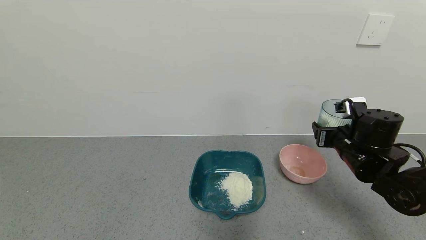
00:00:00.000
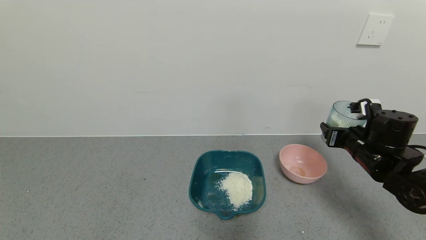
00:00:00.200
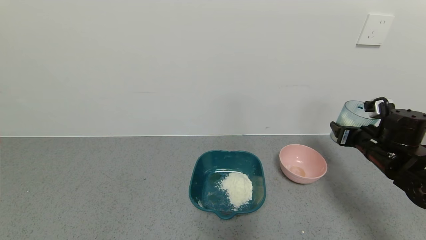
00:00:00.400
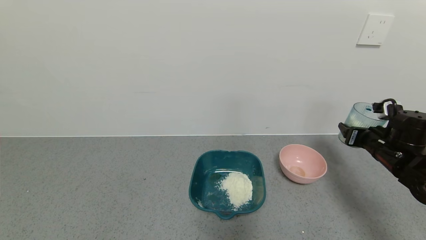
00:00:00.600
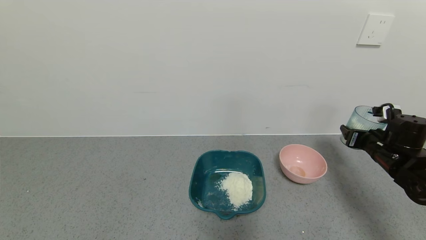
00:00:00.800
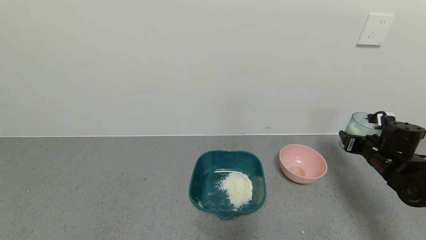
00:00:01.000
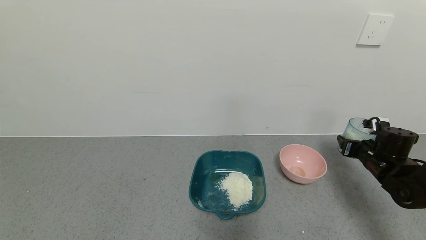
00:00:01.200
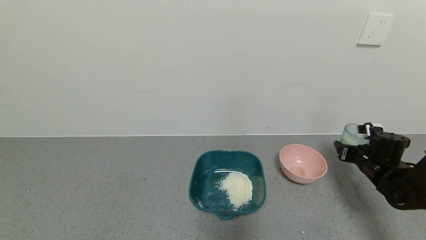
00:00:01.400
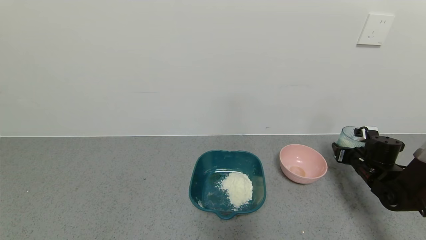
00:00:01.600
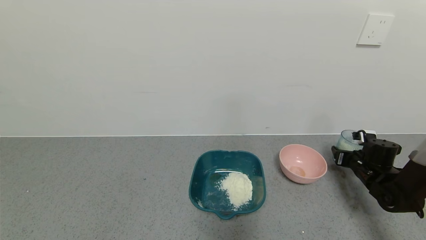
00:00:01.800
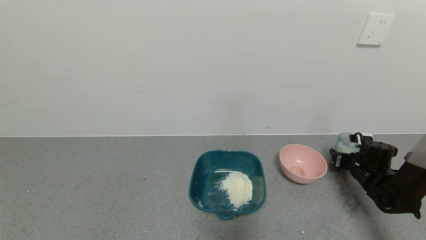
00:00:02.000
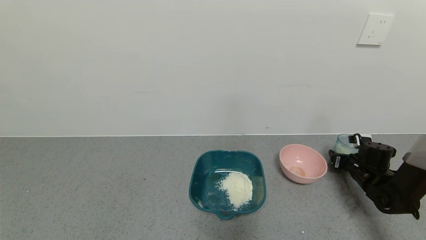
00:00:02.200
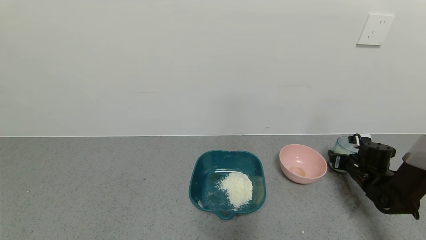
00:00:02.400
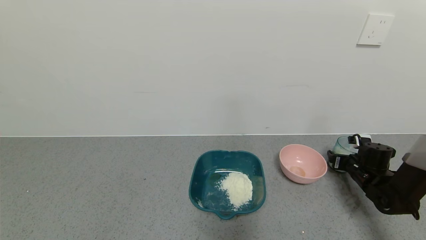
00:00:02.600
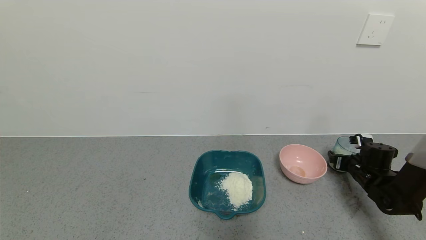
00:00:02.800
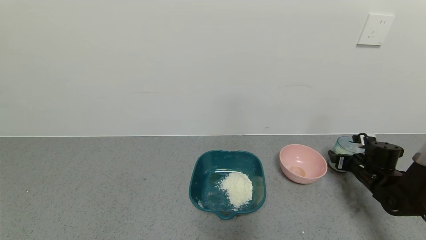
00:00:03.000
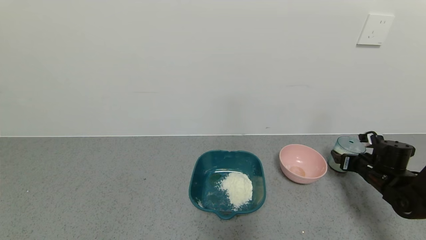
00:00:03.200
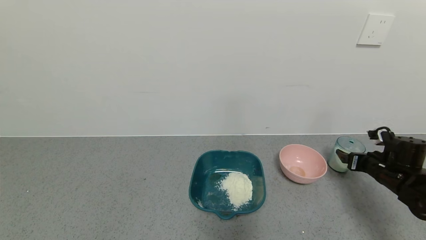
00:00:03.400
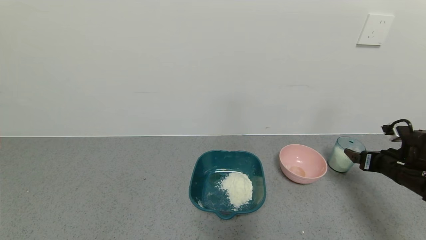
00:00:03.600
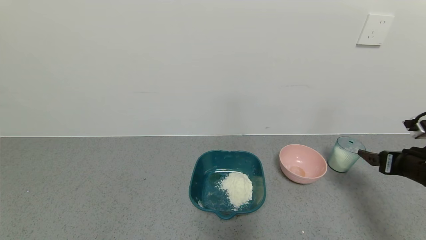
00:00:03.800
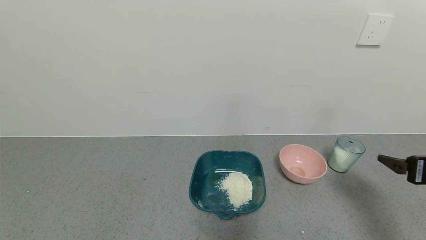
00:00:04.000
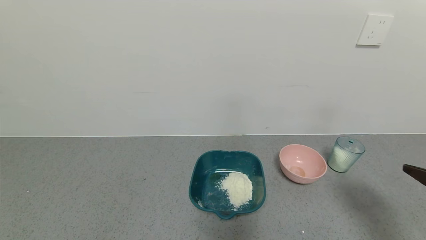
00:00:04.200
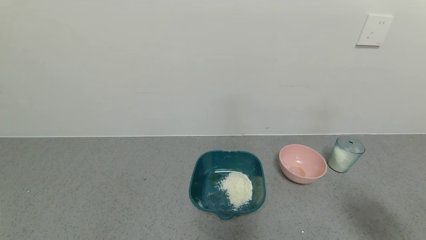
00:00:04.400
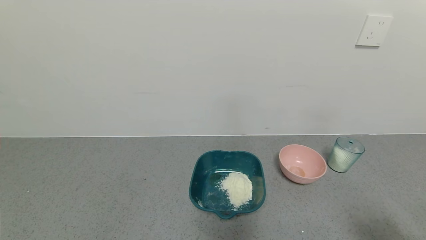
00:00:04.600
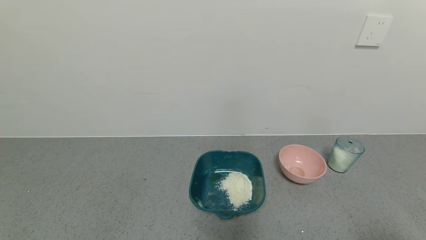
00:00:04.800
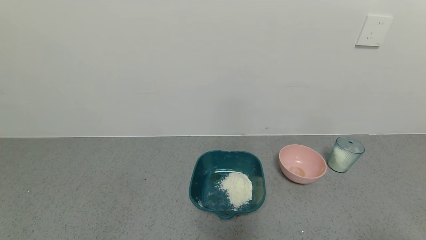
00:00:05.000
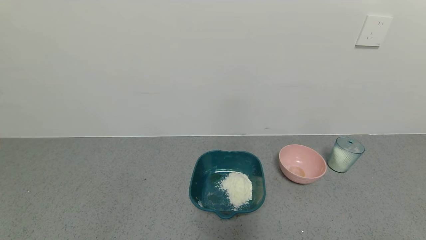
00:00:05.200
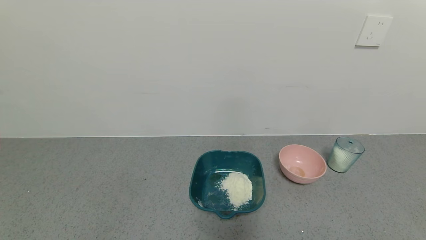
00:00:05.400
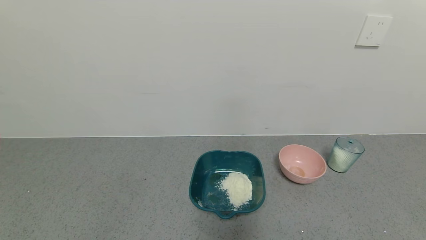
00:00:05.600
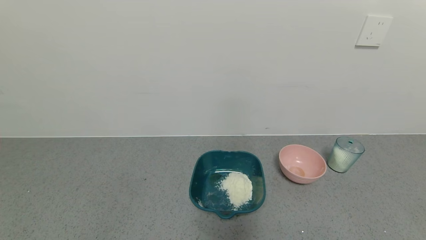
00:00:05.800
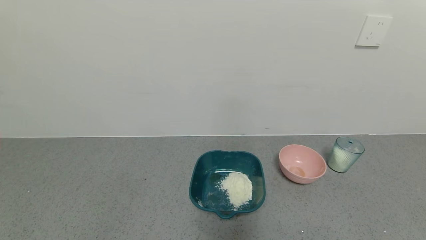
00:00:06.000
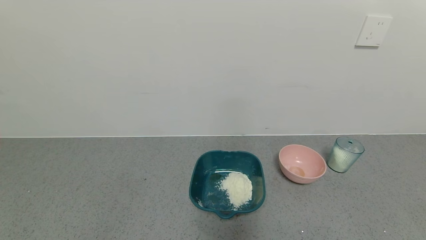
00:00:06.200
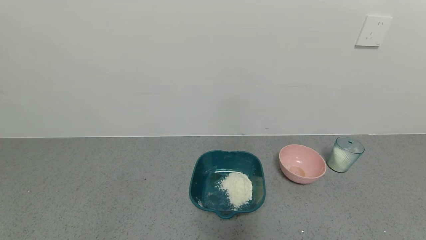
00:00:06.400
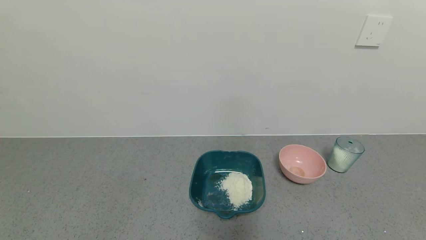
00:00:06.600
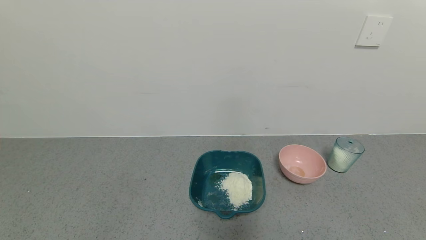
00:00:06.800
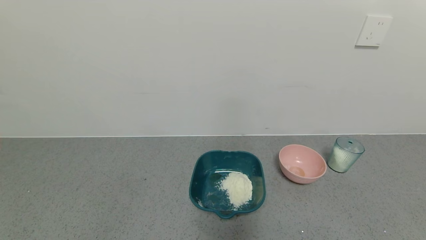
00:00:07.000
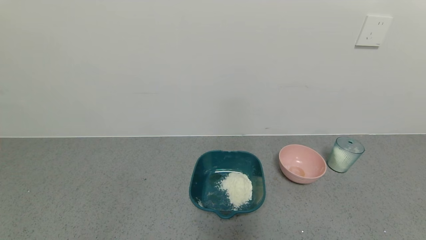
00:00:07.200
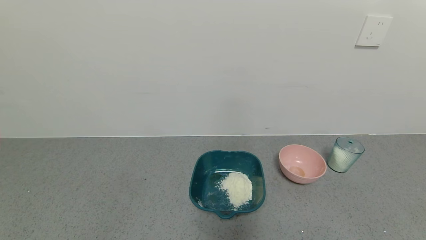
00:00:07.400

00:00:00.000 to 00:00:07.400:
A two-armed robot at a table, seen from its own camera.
Task of the whole recording: use a gripper to pick up the cup and pour the powder into a bowl or tray.
Step, 00:00:00.000 to 00:00:03.400: Place the glass cup down with the right gripper.
00:00:00.000 to 00:00:01.400: The right gripper travels to the right and downward by approximately 15 cm.
00:00:01.400 to 00:00:03.000: The right gripper opens its fingers.
00:00:03.000 to 00:00:04.400: The right gripper travels backward and upward by roughly 35 cm.
00:00:04.400 to 00:00:06.000: The right gripper heads backward and downward, covering some 15 cm.
